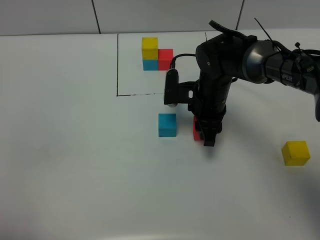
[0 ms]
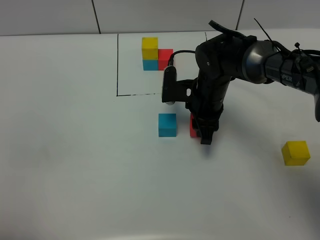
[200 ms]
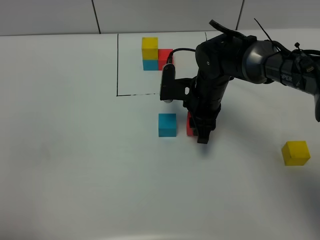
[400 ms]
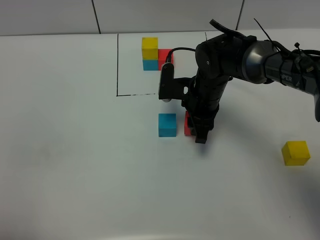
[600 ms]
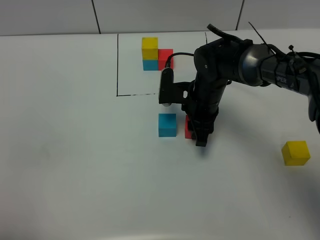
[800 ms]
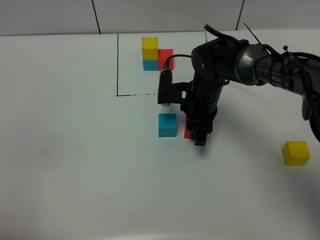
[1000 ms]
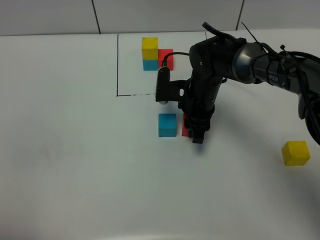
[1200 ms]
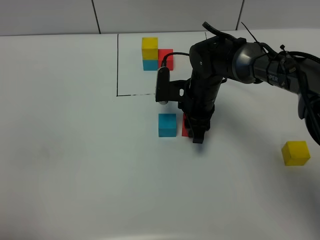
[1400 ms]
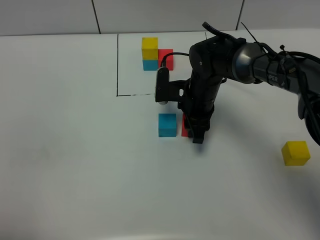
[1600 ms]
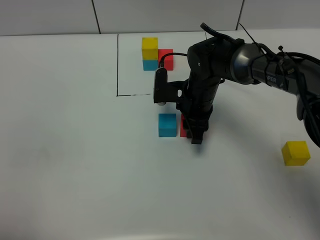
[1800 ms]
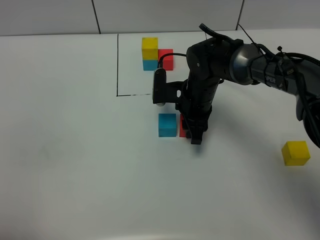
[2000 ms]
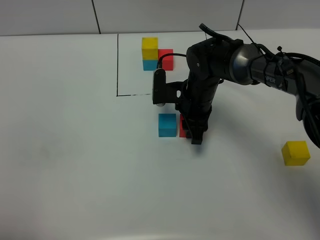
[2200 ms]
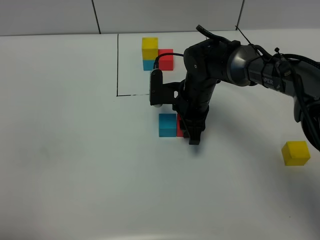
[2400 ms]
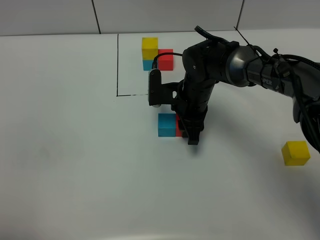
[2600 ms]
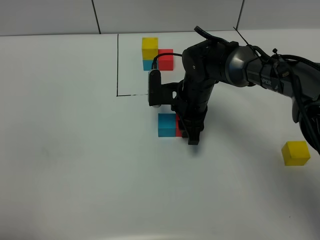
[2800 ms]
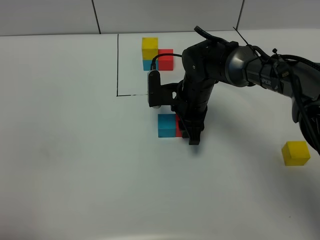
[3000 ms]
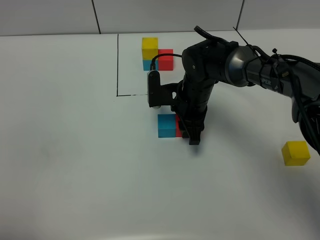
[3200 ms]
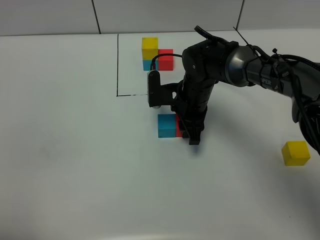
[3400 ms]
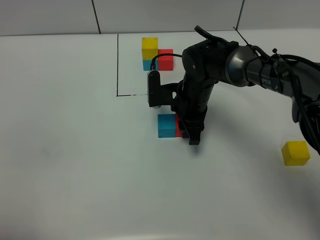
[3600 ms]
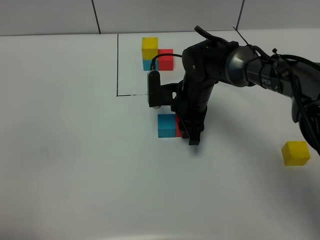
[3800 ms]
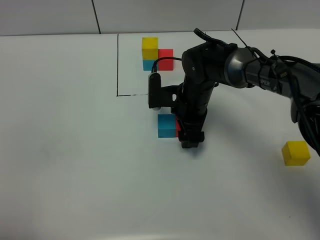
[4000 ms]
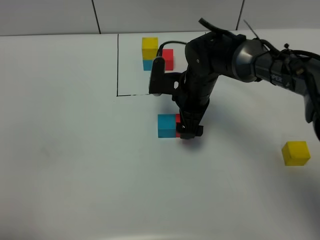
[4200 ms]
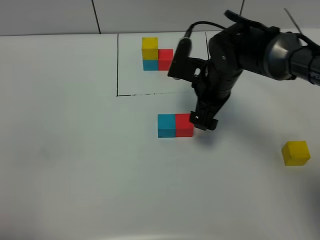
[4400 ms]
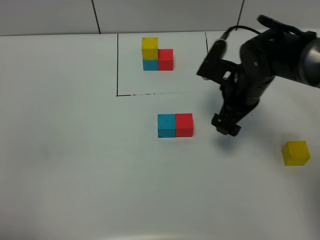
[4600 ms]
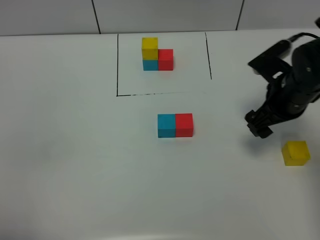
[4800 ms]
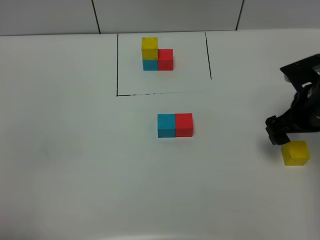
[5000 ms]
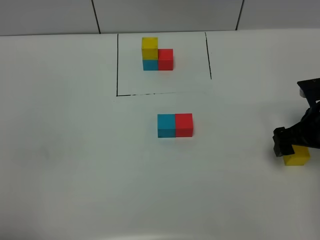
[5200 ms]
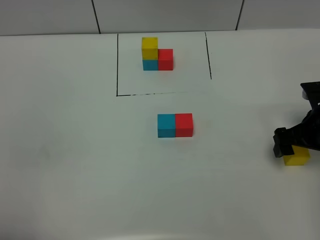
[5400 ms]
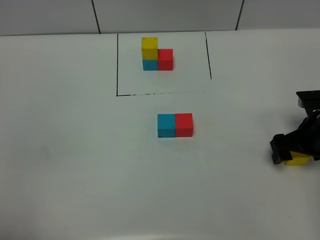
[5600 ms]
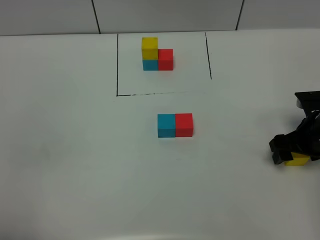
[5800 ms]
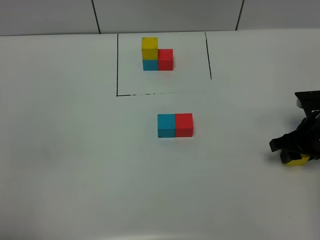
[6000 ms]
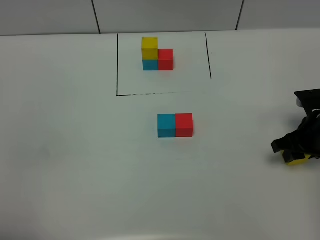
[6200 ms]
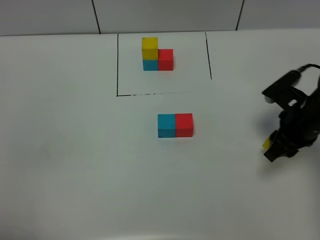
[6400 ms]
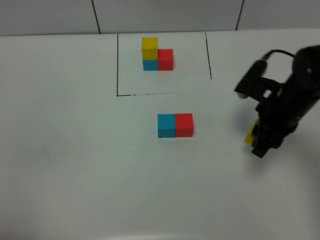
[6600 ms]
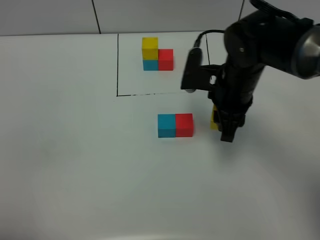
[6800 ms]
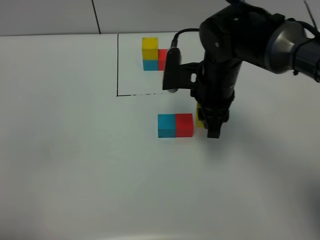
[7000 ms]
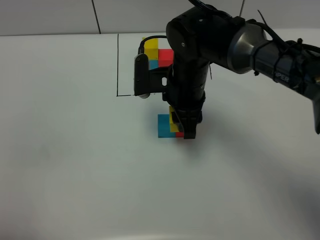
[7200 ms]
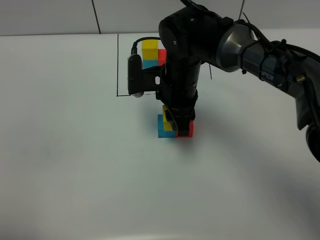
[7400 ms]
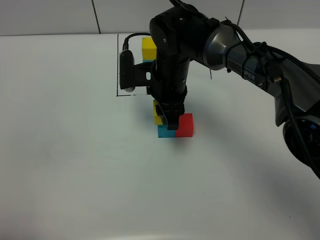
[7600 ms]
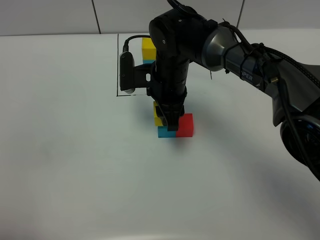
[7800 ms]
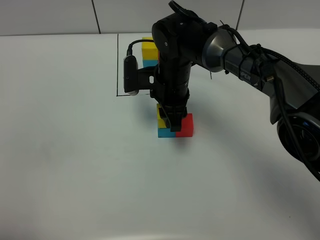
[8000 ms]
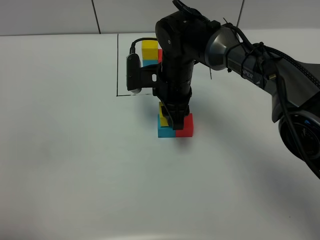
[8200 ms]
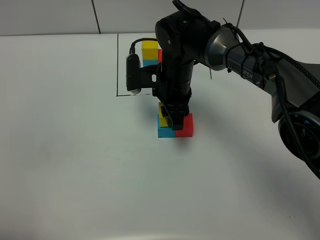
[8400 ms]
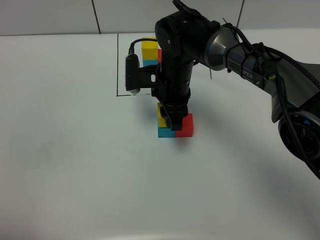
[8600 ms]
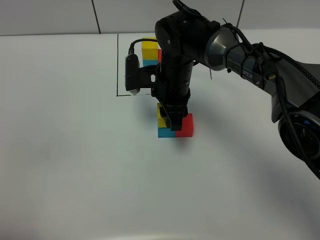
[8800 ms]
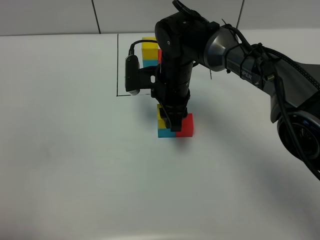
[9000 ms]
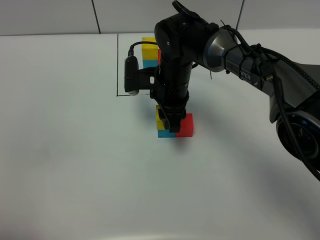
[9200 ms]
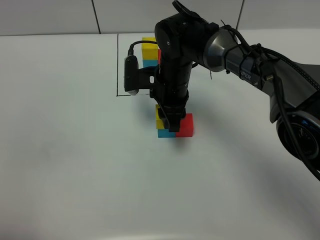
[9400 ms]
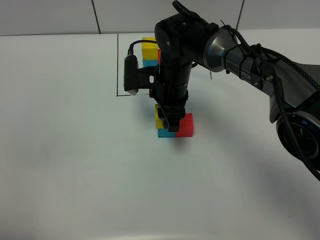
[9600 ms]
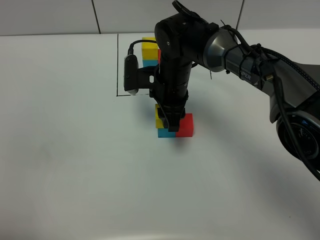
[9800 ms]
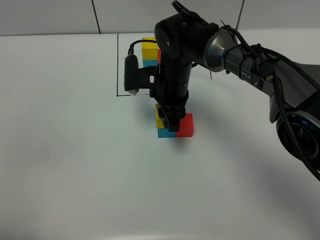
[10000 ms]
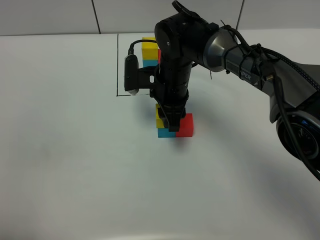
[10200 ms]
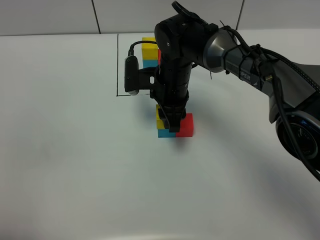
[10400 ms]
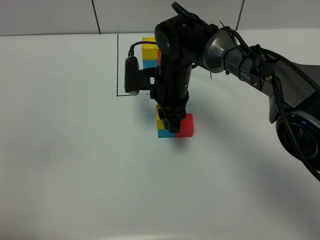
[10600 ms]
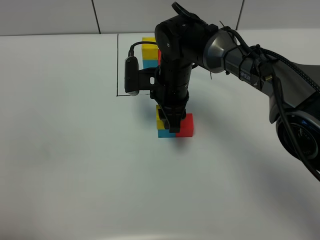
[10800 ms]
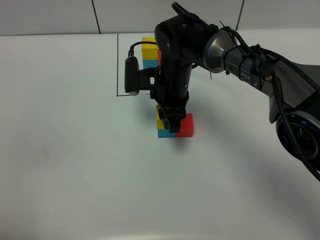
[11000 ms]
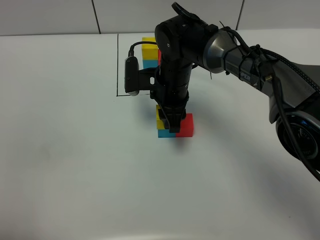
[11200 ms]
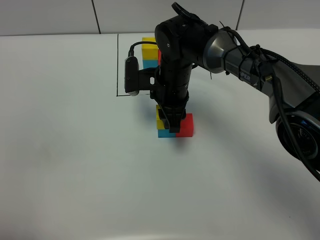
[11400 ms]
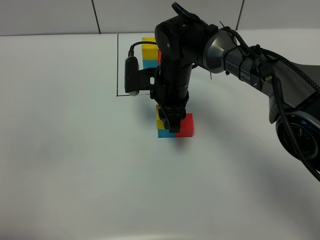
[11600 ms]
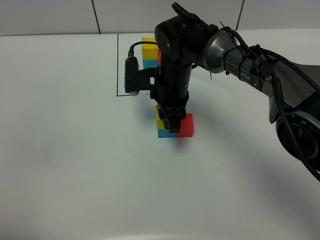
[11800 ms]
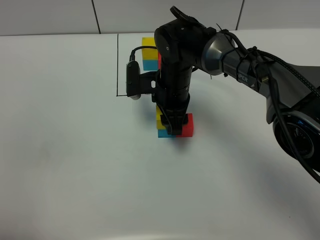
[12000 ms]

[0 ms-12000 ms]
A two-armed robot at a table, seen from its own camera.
Task of the whole recording: According to the building block template in front, assemble the scattered blocks together.
Step, 0 ms to 3800 ms: Put the red build block on the right of the blue build block.
0 ms to 3000 ms: There are only small adjustments of the grippers.
3000 ms to 4400 ms: The right gripper travels upward and to the right by approximately 10 cm, and opens.
4400 ms to 6000 ms: The right gripper is displaced to the right by some 20 cm, and closes up.
6000 ms to 7600 ms: The right gripper is displaced to the left by approximately 30 cm.
7600 ms to 9000 ms: The grippers stay close to where they were, moving slightly.
9000 ms to 12000 ms: Both grippers stay about where they are.

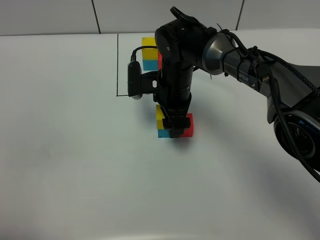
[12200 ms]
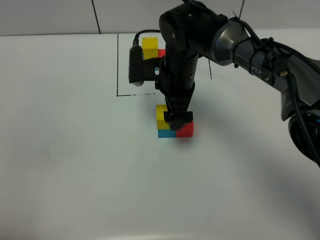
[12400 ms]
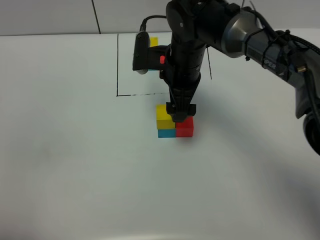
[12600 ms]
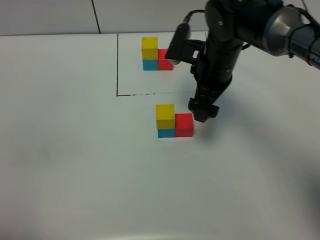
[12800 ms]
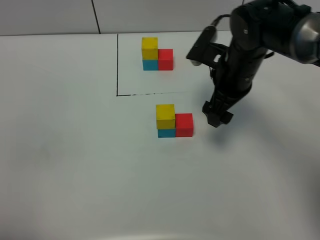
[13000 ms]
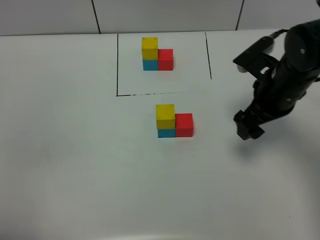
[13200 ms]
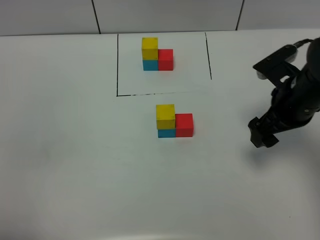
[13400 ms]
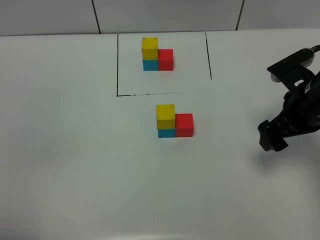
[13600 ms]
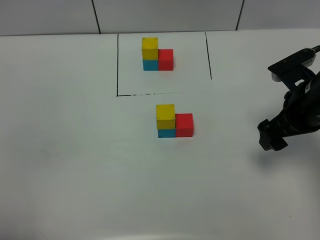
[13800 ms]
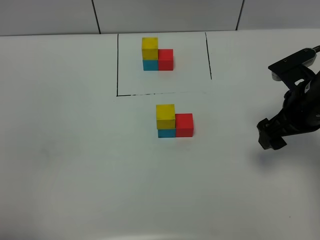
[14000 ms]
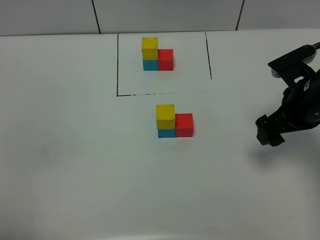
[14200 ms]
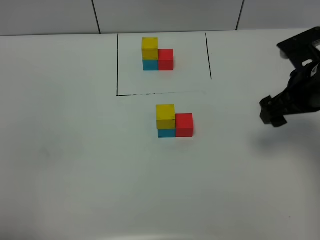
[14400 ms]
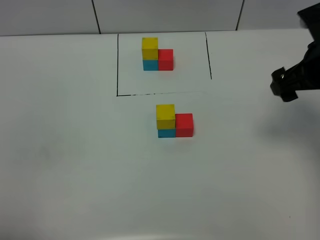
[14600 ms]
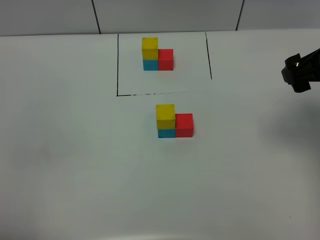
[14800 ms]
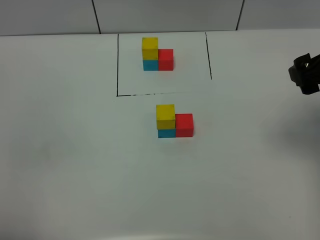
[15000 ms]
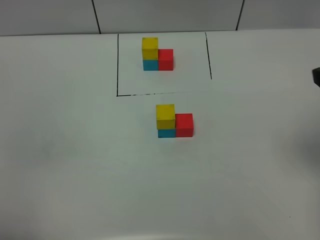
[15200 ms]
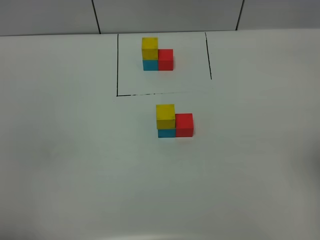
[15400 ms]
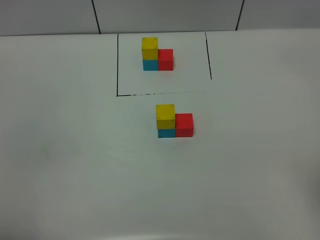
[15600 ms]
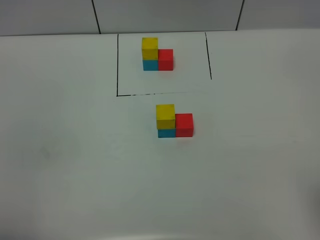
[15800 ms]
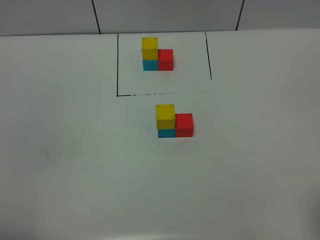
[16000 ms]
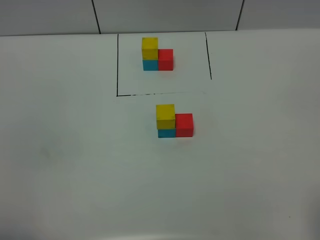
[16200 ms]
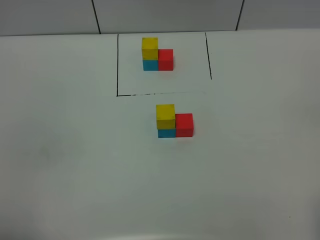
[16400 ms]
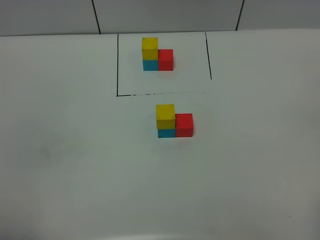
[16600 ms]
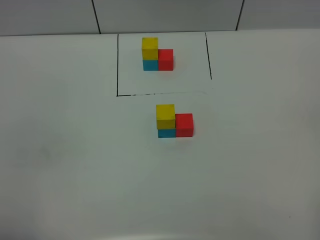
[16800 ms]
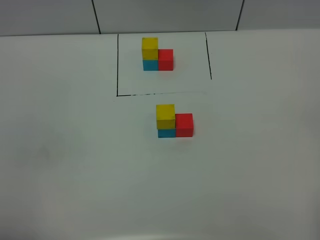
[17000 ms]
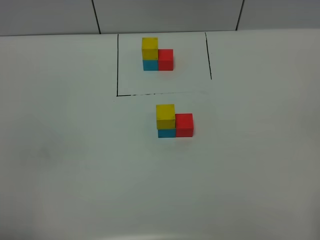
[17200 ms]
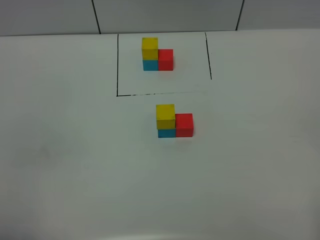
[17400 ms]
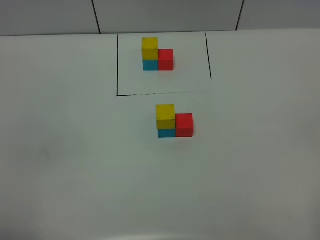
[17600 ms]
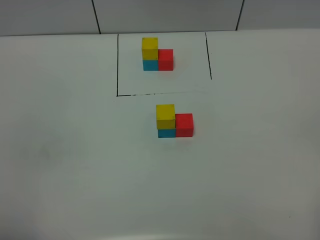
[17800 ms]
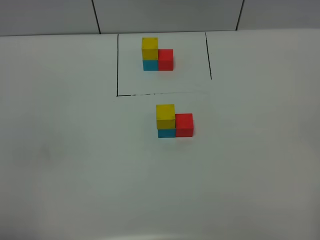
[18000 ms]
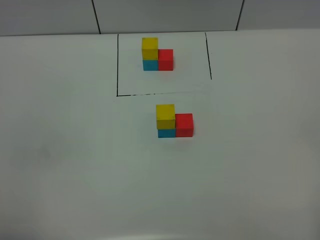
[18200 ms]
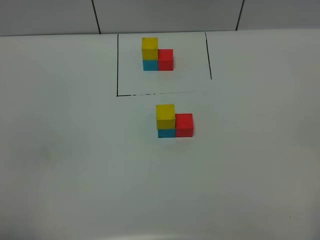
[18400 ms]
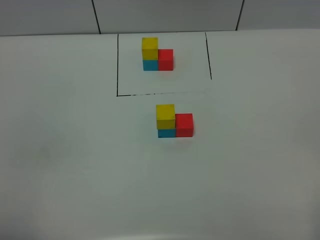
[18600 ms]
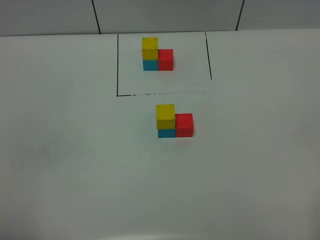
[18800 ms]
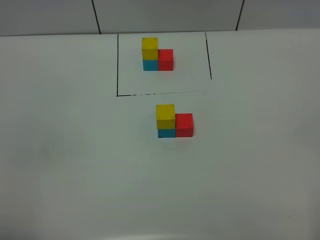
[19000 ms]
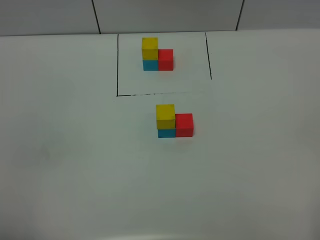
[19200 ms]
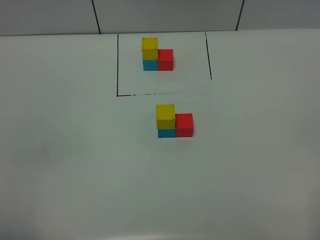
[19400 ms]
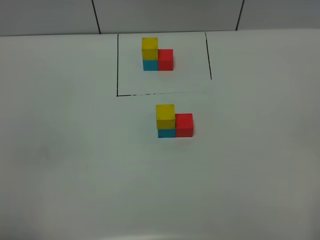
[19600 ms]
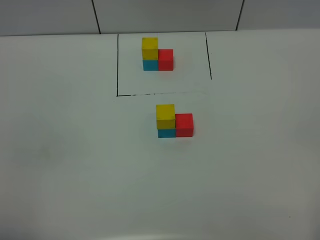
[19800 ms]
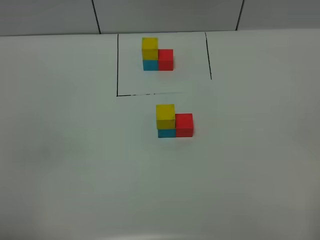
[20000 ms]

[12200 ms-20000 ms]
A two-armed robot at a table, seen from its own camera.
Task of the whole recording: According to the building block template in front, assemble the scattered blocks together.
12200 ms to 13800 ms: The right gripper heads to the right and backward, covering some 25 cm.
13800 ms to 15400 ms: The right gripper goes roughly 20 cm upward, backward and to the right.
18400 ms to 20000 ms: Both grippers stay put.

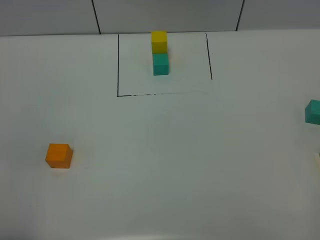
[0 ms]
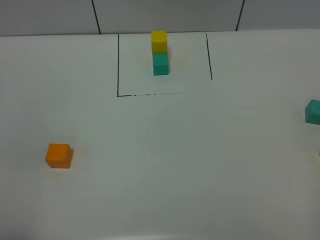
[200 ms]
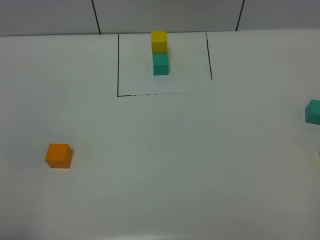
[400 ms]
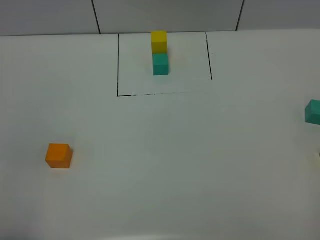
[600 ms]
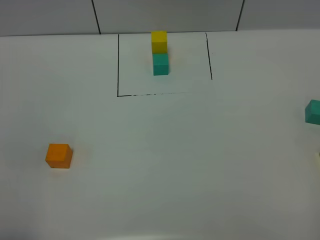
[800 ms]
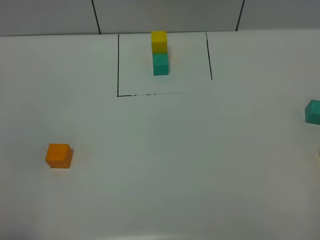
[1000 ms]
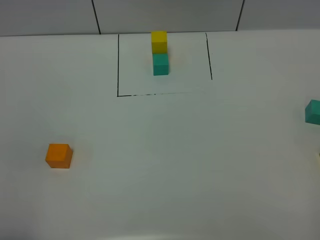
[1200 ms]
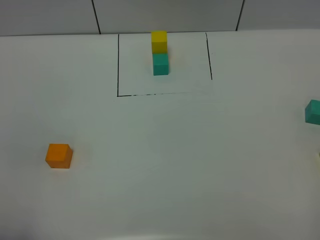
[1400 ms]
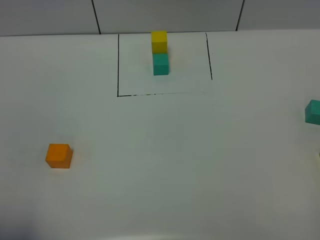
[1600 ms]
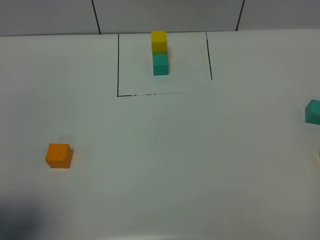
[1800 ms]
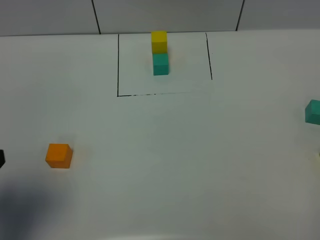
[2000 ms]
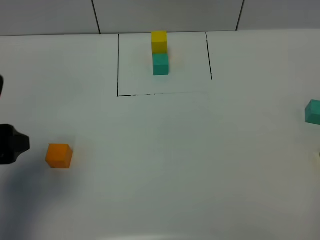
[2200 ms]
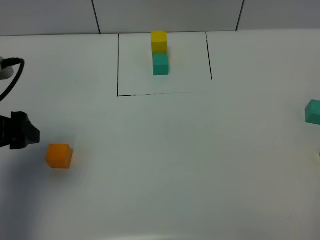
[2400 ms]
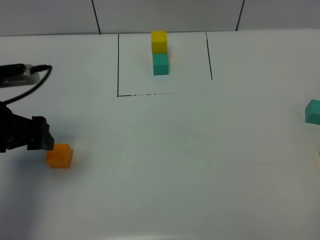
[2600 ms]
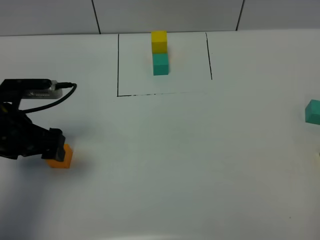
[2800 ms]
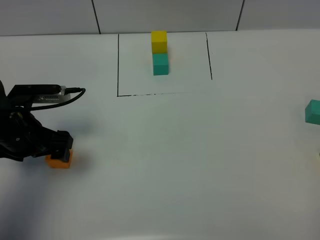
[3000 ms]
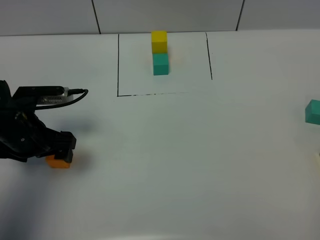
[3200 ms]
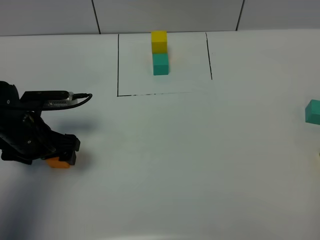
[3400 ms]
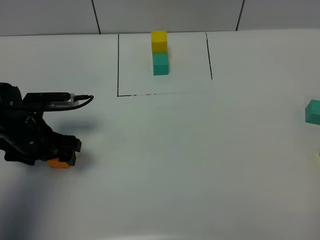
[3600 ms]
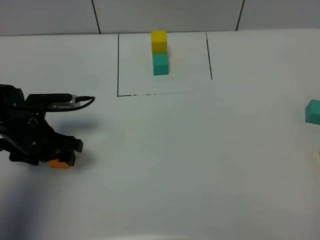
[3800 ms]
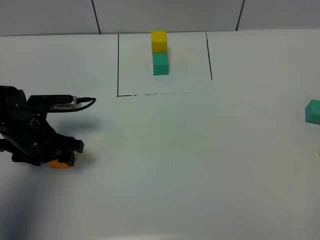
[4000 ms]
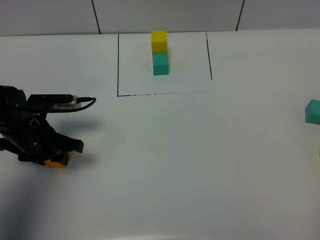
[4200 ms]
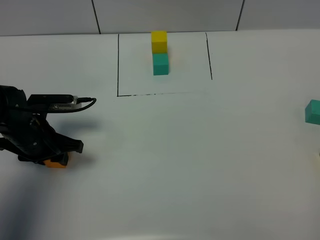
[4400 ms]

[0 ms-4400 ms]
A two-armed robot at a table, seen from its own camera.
Task of the whole recording: According to the building block template in front, assemble the scattered blocks together.
1400 ms to 3000 ms: The left gripper travels forward and downward by about 30 cm.
3000 ms to 4400 ms: The left gripper shifts by roughly 5 cm, and closes its fingers.
